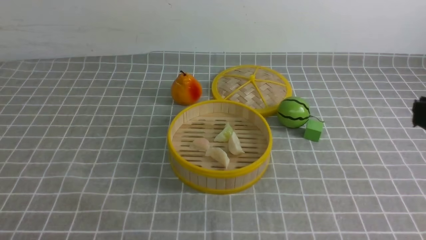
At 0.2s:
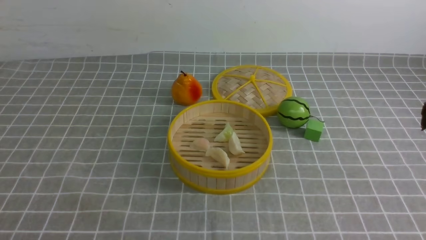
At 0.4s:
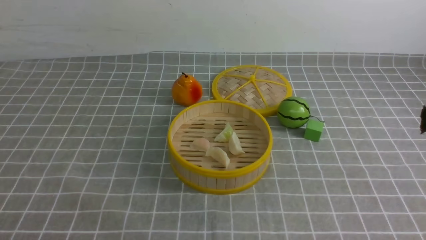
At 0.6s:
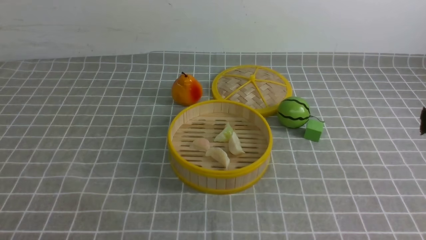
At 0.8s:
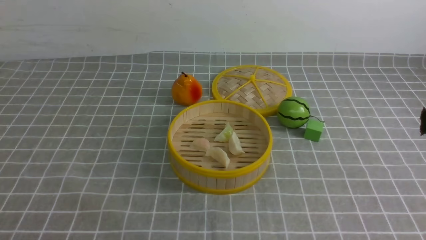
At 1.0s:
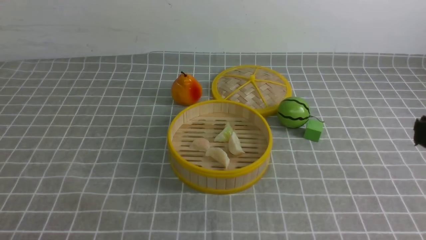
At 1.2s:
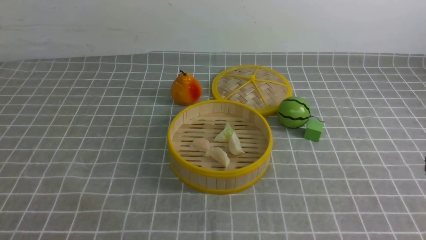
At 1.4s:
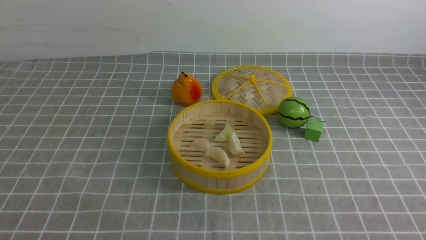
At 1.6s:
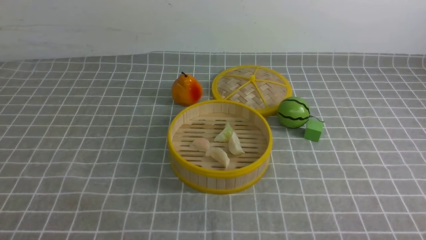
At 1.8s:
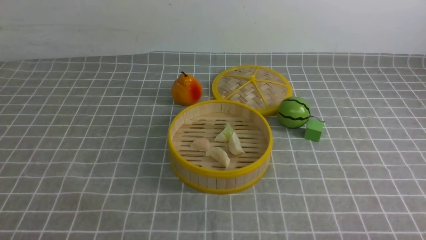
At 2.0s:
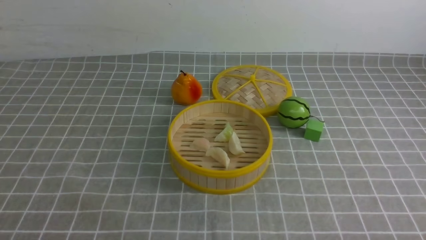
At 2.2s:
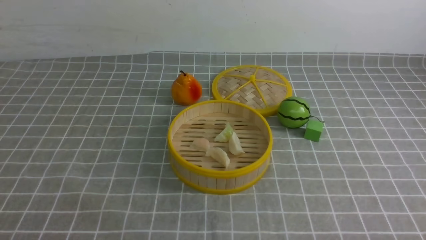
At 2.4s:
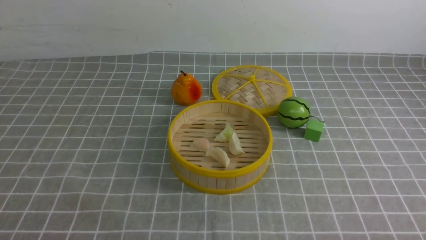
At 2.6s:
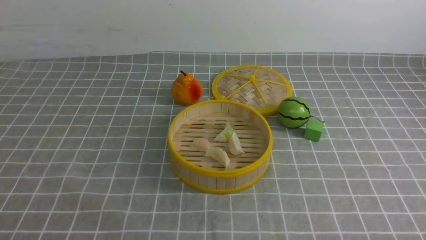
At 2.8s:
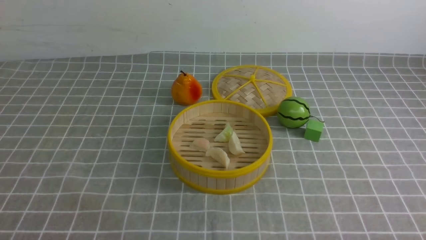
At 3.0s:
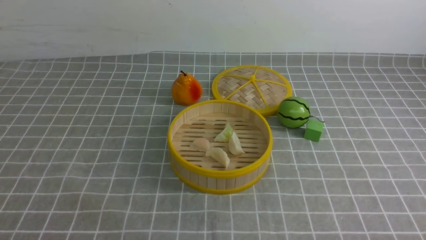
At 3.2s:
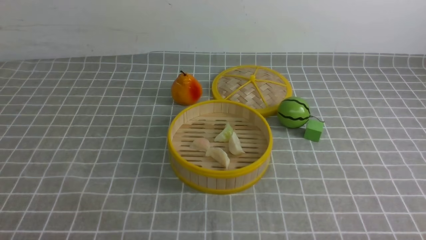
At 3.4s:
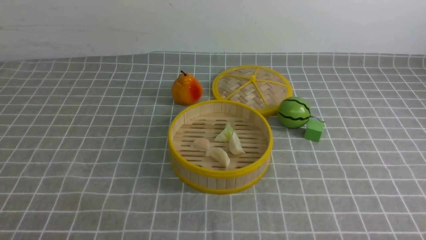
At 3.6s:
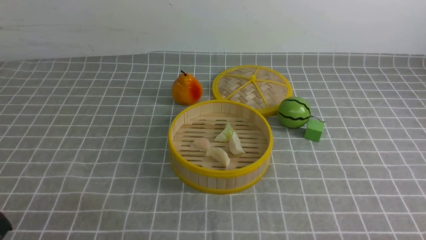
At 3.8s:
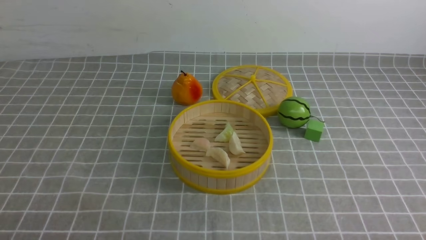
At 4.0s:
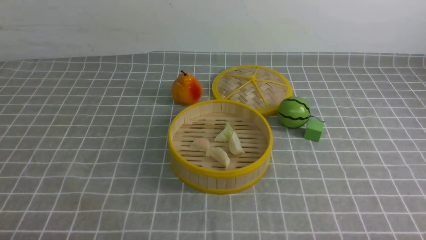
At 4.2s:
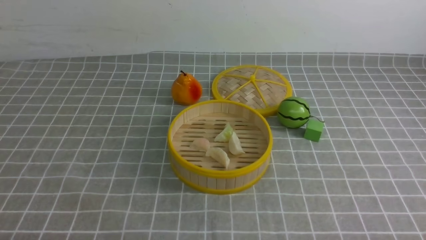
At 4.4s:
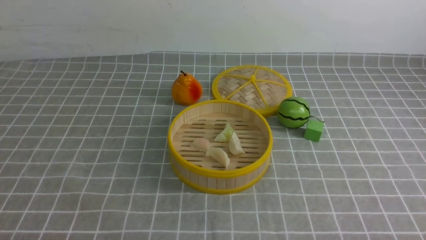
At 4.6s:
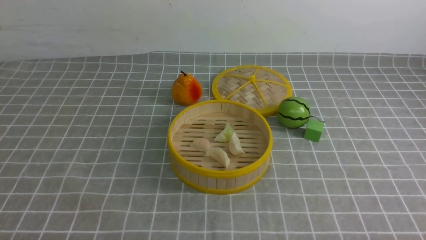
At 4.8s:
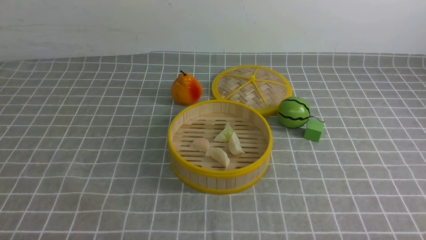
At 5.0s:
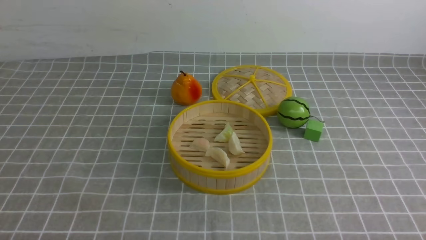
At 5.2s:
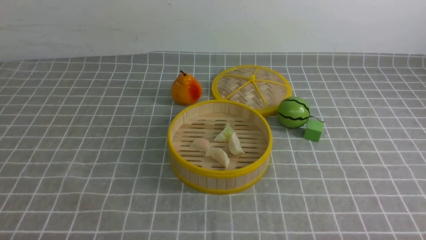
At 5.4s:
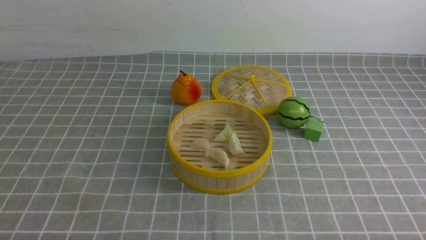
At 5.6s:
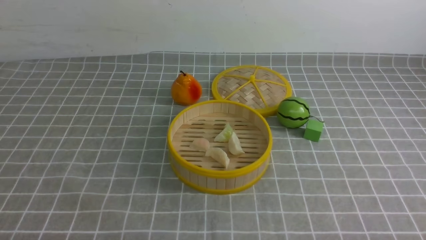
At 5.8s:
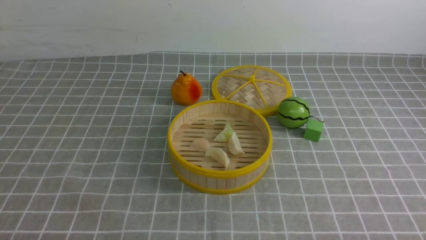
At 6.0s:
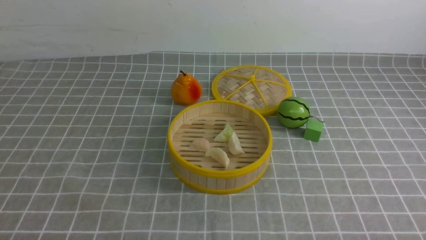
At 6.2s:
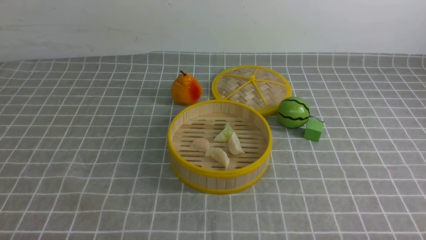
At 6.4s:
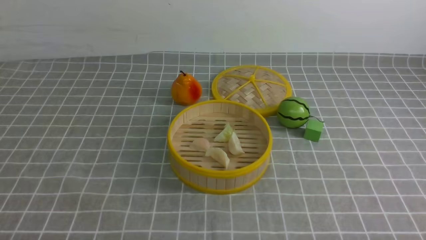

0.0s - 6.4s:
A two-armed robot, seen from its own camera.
Task of the whole recording: put the dumplings into the steamer on the table with the grey tablecloth.
4.8s - 6.4s: Both grippers stay put.
